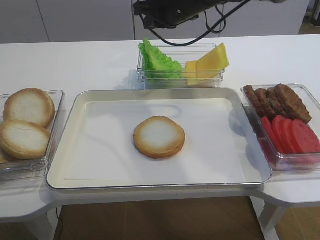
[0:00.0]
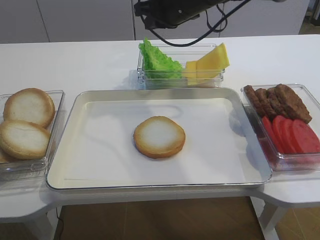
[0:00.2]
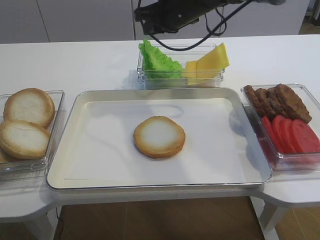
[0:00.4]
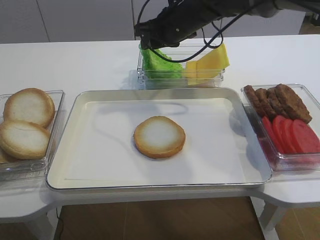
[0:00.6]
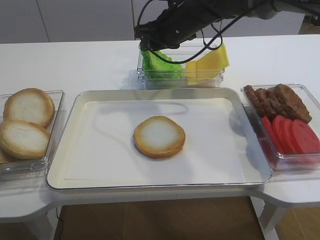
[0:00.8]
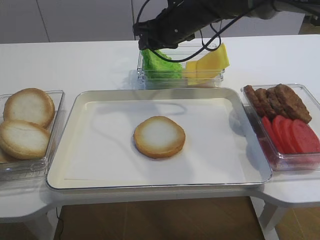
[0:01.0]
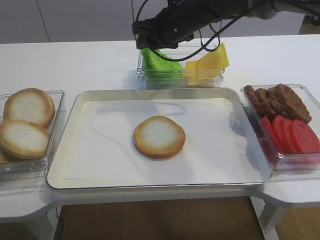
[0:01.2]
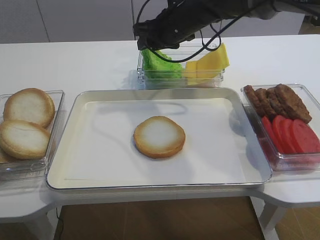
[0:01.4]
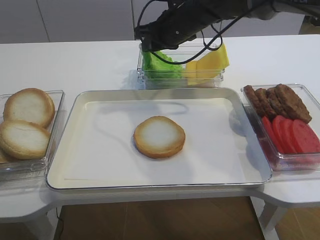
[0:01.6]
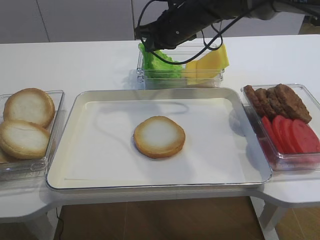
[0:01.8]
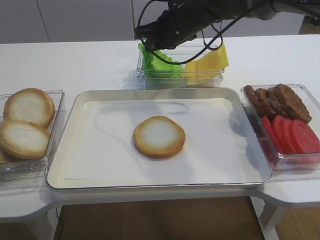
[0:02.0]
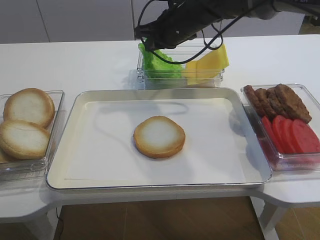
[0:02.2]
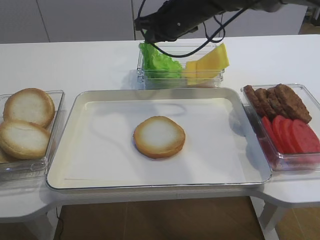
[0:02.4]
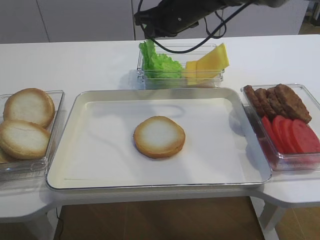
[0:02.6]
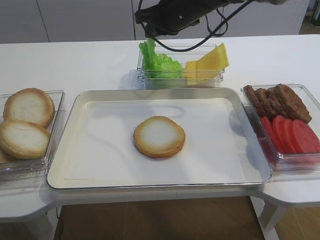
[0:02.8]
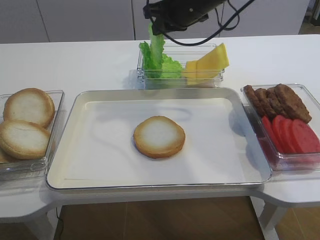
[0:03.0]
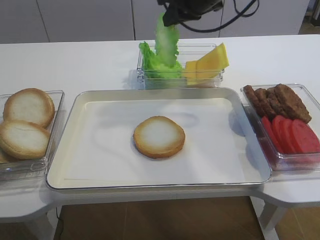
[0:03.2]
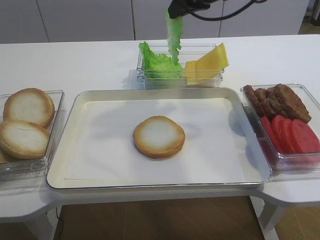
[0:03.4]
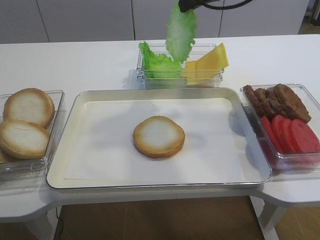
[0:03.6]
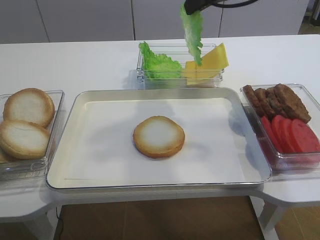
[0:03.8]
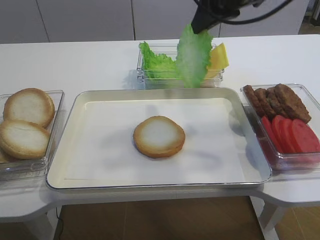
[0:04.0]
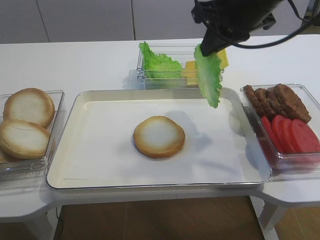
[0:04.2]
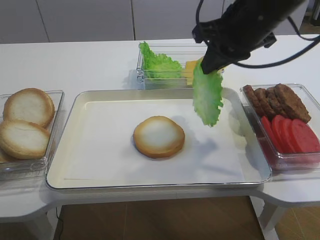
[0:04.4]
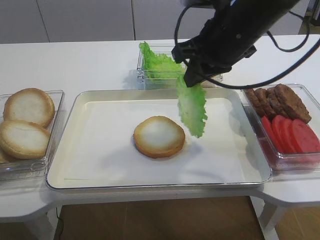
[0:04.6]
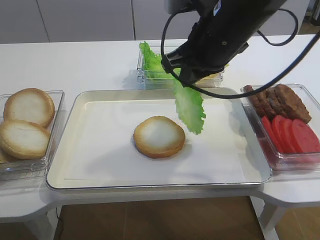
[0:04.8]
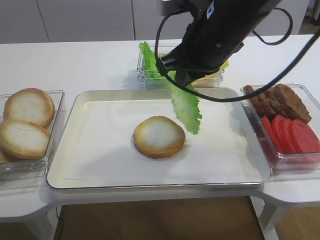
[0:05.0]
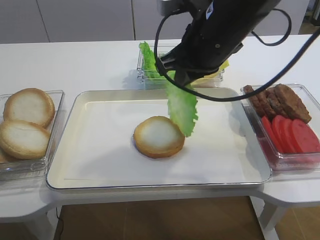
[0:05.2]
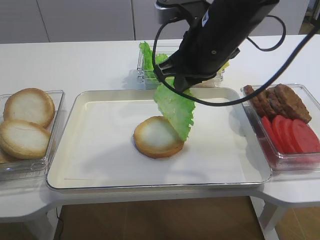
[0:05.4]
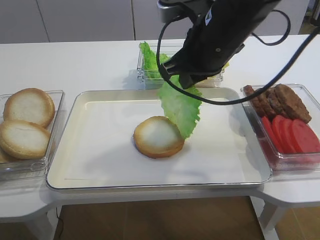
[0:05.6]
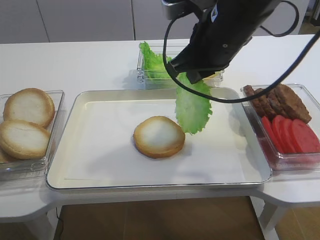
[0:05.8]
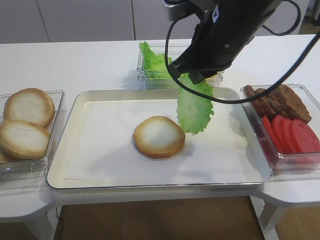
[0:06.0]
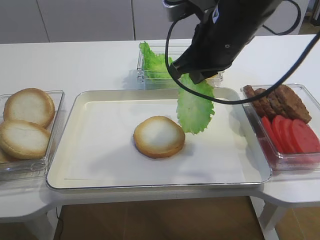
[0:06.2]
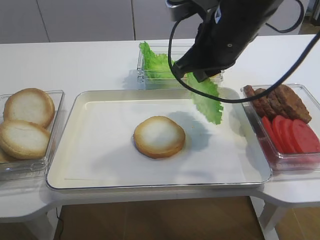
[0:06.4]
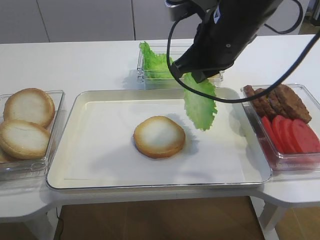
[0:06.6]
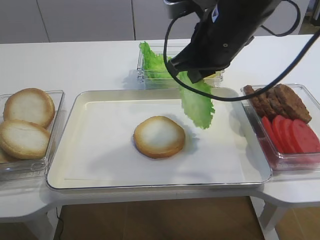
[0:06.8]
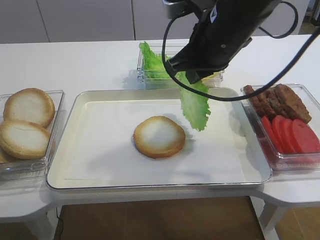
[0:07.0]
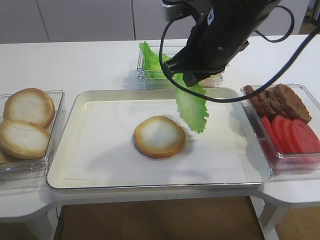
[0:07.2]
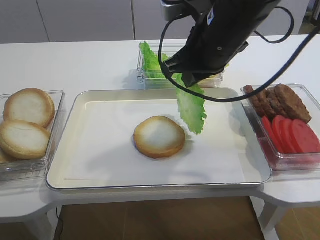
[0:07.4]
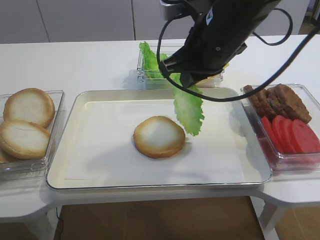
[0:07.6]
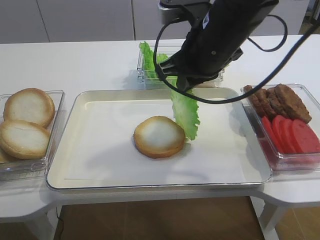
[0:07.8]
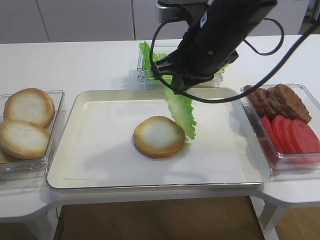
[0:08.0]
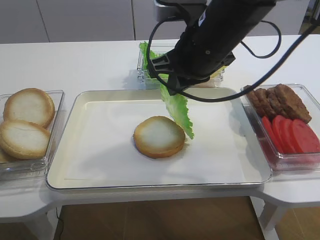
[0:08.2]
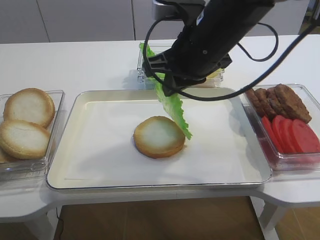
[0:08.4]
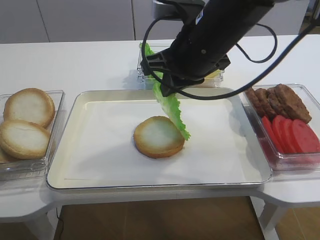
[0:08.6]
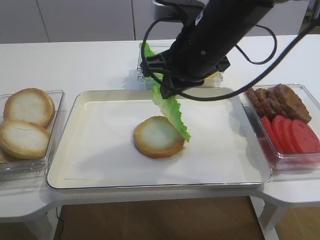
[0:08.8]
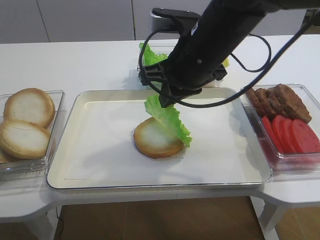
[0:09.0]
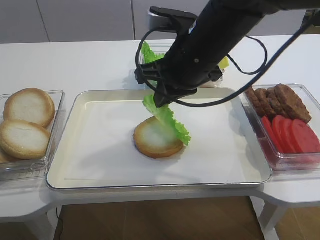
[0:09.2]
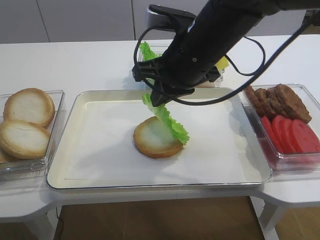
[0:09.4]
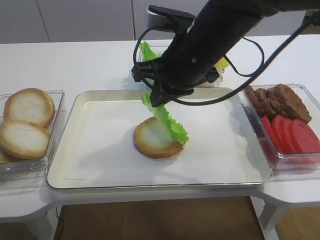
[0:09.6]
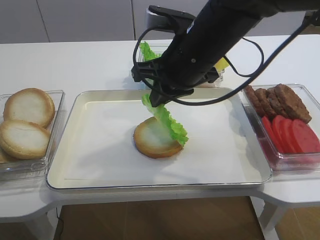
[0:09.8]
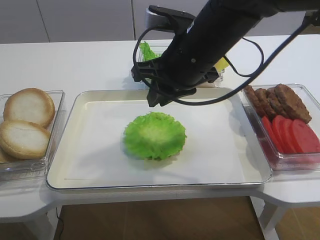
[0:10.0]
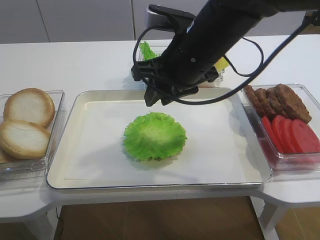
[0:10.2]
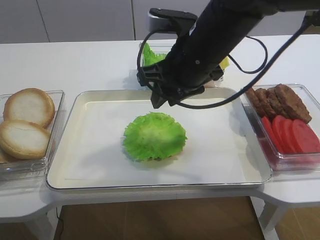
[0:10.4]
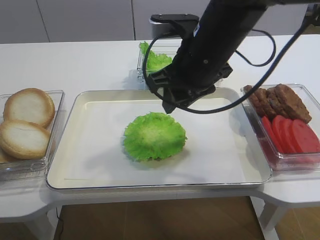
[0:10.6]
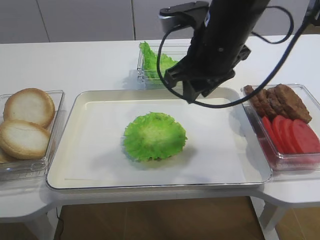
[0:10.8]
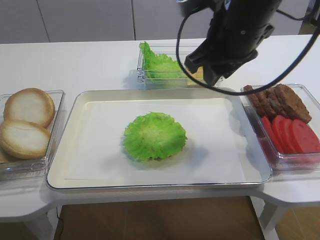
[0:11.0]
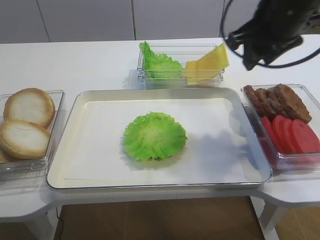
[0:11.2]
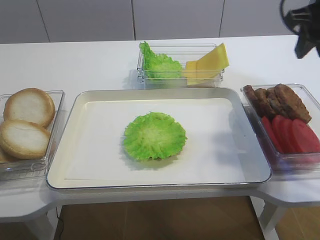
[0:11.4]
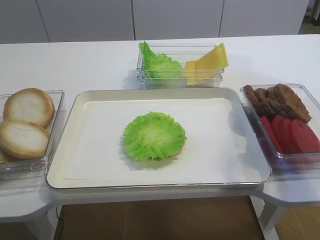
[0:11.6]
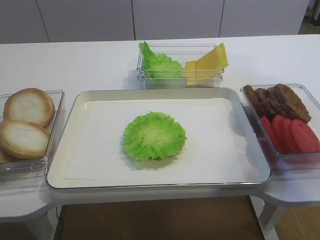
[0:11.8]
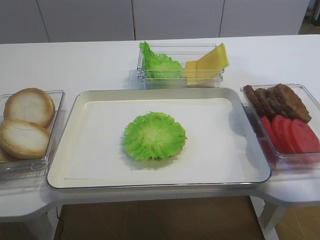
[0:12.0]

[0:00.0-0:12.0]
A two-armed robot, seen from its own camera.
Step, 0:00.0 to 0:03.0: Pick up the lettuce leaf with the right gripper.
Step, 0:03.2 to 0:10.0: Place the lettuce leaf on the bread slice with the right gripper.
0:00.0 to 0:01.6: The right gripper opens up.
0:01.6 to 0:03.0: The right gripper closes its fingers.
0:03.0 to 0:04.4: The right gripper goes approximately 15 cm backward and to the right.
0:04.4 to 0:06.0: The right gripper ends up about 5 cm from where it was.
0:06.0 to 0:07.6: The grippers make only small movements.
0:07.6 to 0:09.0: The grippers move only a little.
0:09.0 to 0:10.4: The right gripper opens its fingers.
0:10.4 to 0:12.0: The right gripper travels to the right and upward by some 30 cm, and opens its fingers.

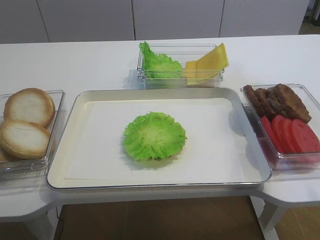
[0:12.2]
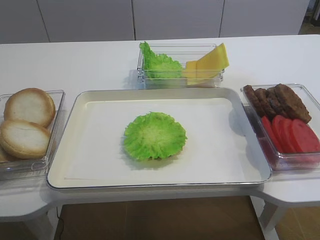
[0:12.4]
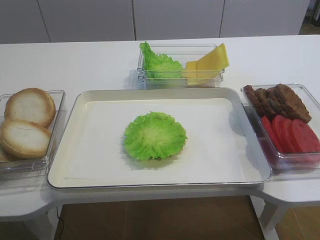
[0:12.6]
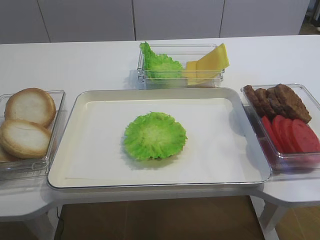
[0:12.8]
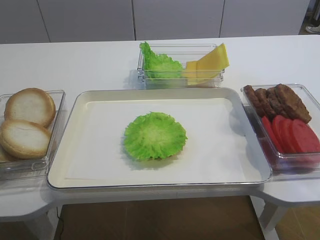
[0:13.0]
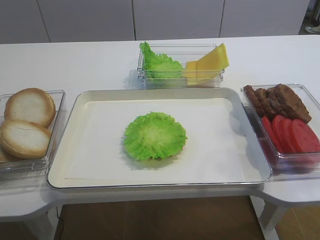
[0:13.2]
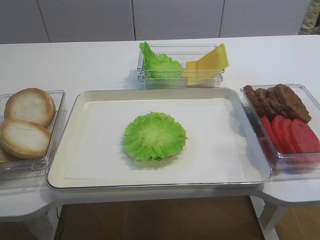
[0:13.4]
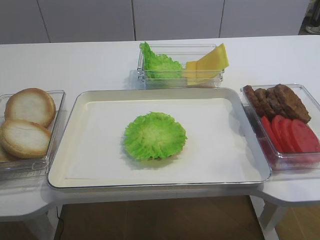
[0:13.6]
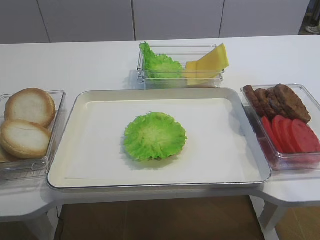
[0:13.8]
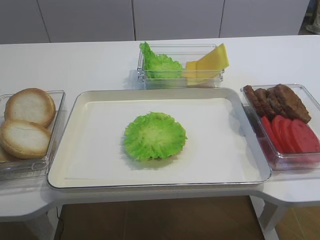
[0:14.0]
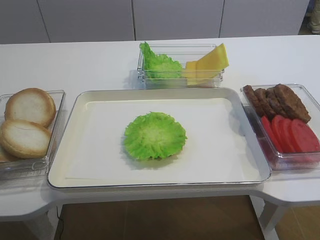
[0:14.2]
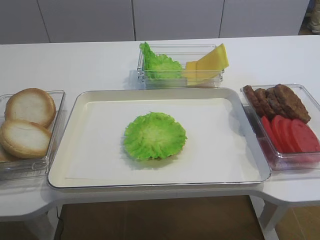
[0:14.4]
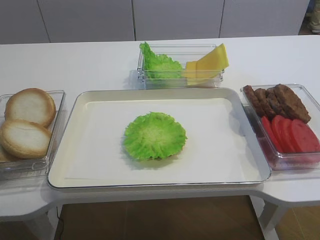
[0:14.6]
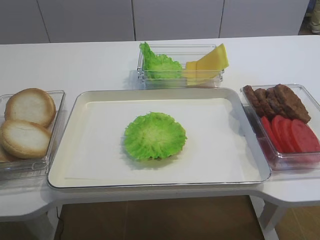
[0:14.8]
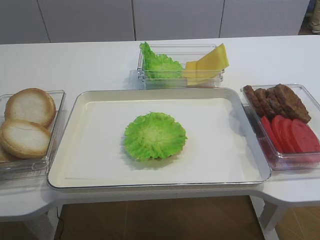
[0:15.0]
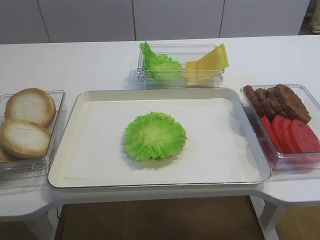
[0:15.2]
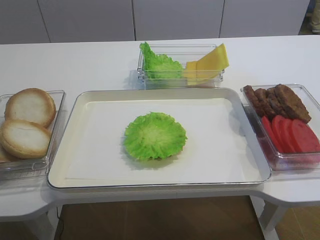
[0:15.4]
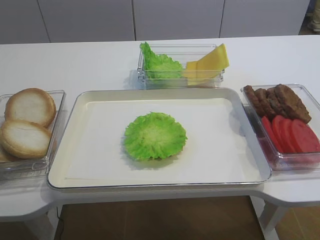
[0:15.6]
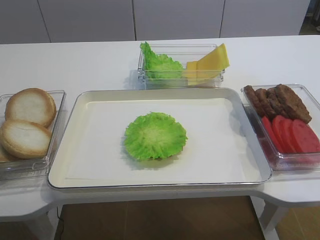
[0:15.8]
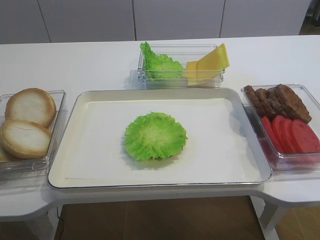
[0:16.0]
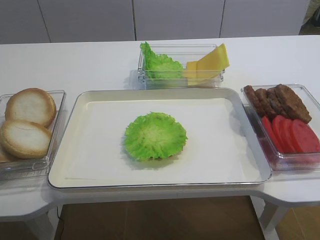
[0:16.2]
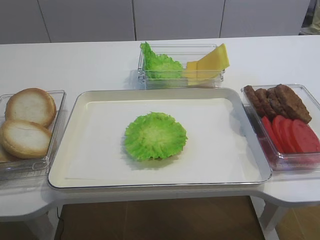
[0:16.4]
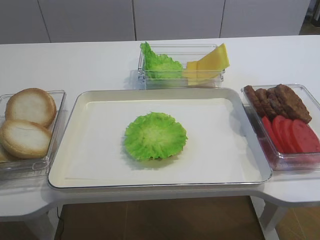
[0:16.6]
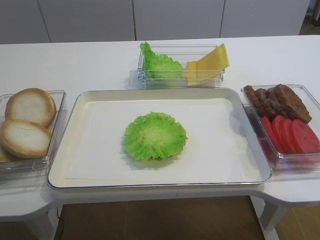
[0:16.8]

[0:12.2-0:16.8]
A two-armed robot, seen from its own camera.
0:13.8 to 0:15.2: The right gripper moves downward, approximately 5 cm.
